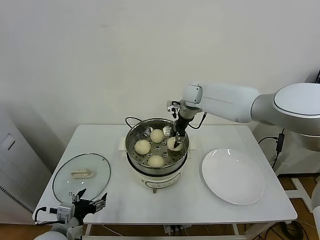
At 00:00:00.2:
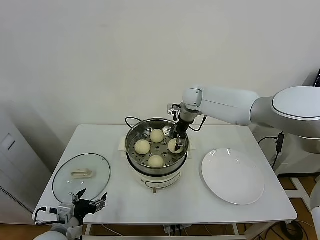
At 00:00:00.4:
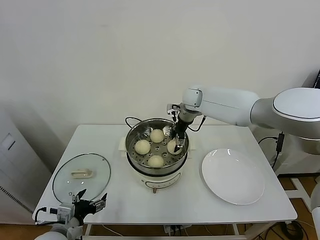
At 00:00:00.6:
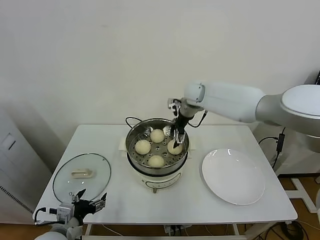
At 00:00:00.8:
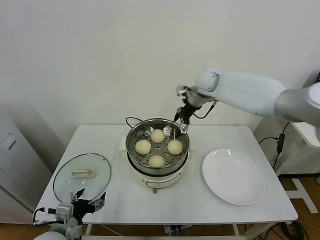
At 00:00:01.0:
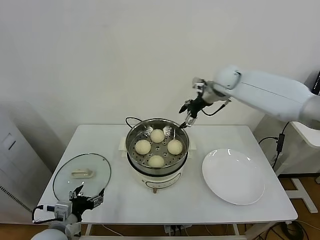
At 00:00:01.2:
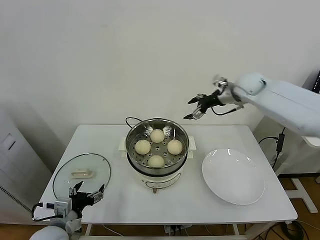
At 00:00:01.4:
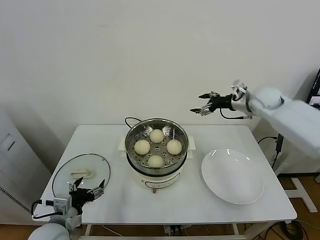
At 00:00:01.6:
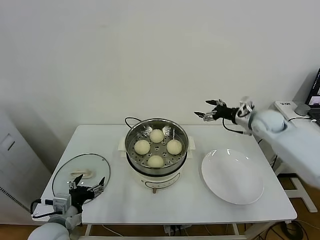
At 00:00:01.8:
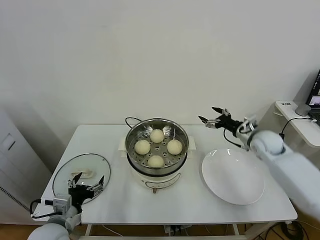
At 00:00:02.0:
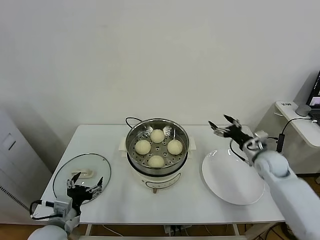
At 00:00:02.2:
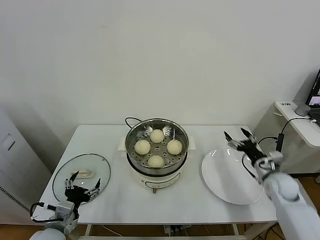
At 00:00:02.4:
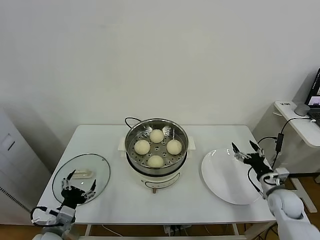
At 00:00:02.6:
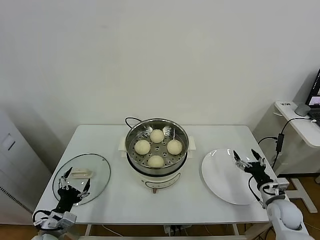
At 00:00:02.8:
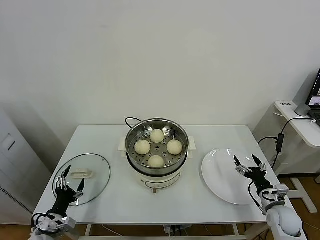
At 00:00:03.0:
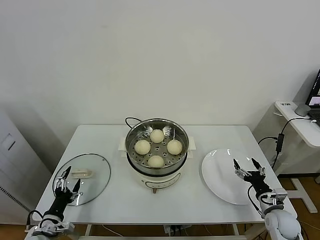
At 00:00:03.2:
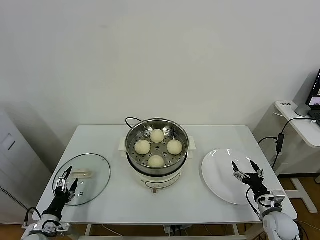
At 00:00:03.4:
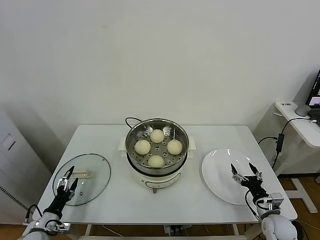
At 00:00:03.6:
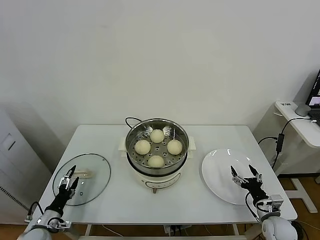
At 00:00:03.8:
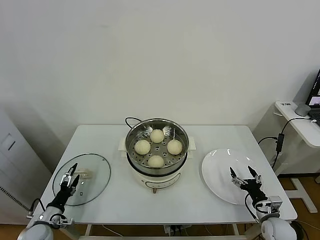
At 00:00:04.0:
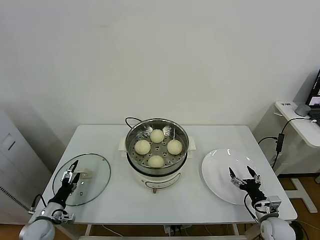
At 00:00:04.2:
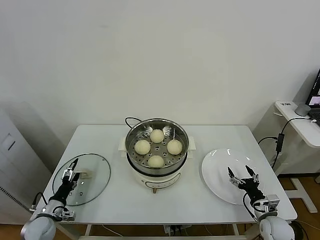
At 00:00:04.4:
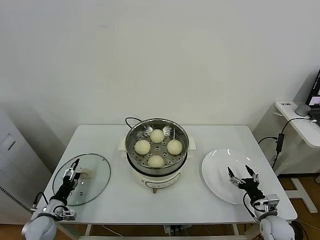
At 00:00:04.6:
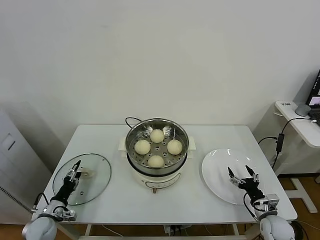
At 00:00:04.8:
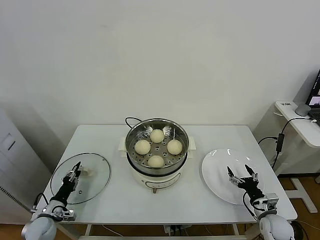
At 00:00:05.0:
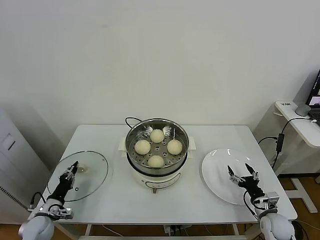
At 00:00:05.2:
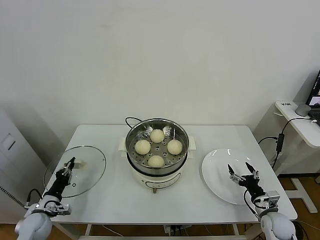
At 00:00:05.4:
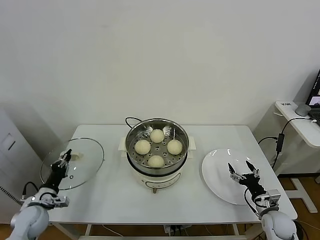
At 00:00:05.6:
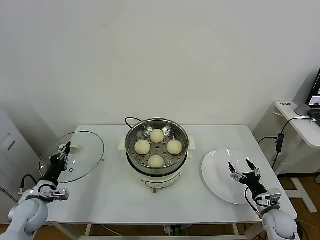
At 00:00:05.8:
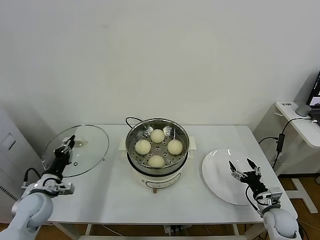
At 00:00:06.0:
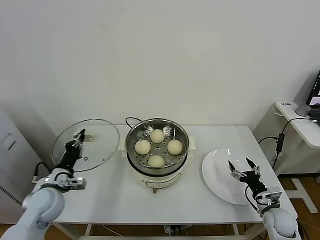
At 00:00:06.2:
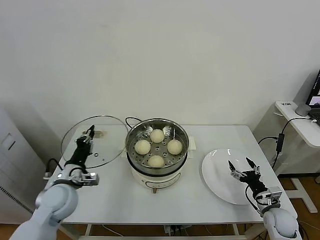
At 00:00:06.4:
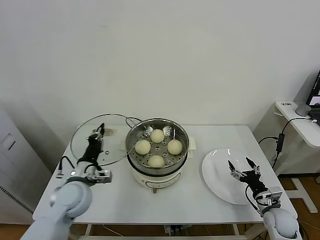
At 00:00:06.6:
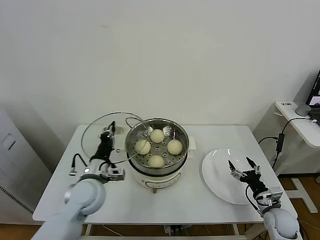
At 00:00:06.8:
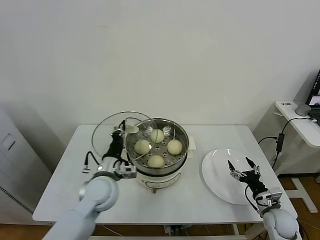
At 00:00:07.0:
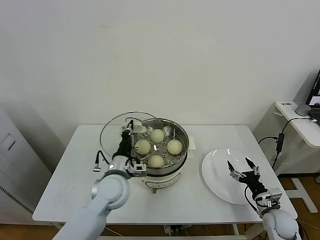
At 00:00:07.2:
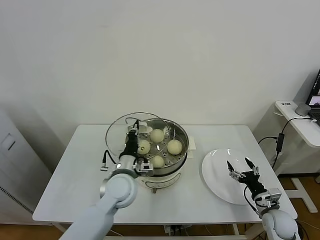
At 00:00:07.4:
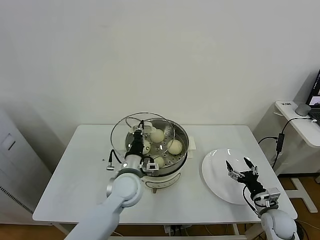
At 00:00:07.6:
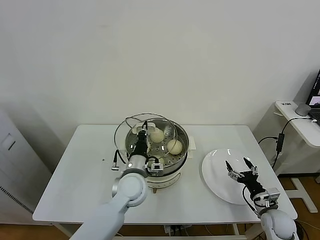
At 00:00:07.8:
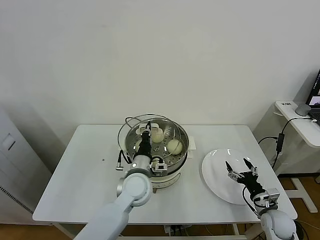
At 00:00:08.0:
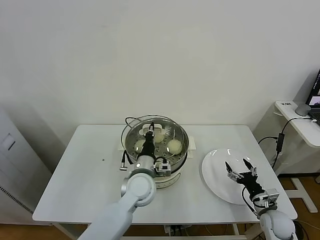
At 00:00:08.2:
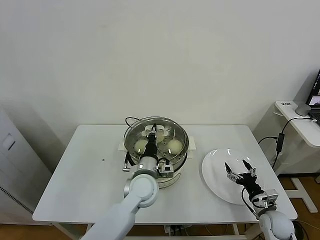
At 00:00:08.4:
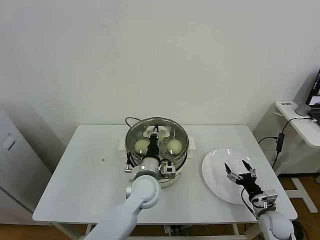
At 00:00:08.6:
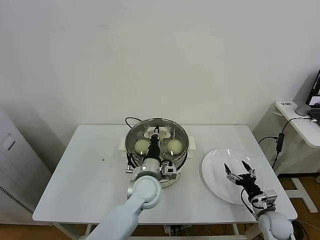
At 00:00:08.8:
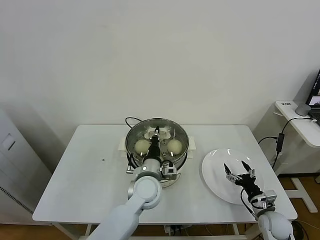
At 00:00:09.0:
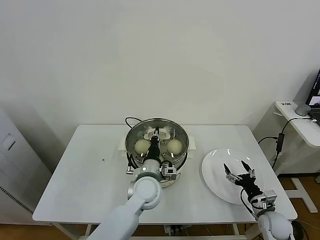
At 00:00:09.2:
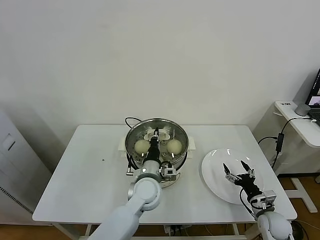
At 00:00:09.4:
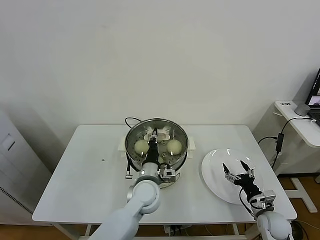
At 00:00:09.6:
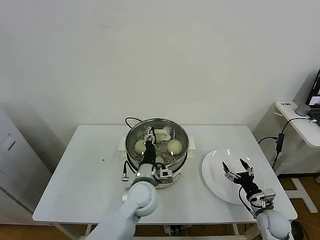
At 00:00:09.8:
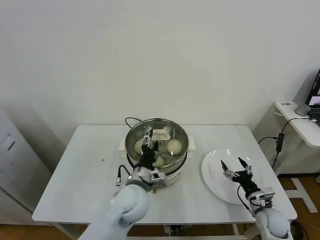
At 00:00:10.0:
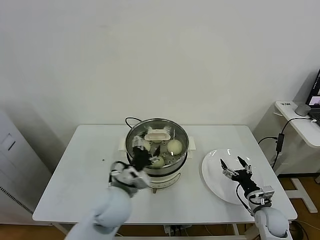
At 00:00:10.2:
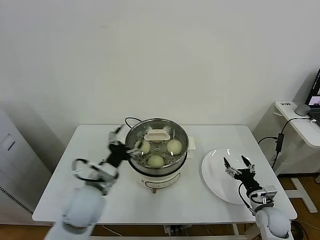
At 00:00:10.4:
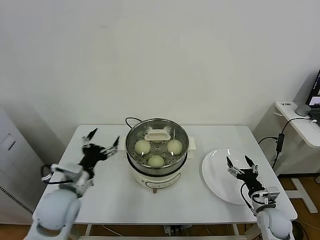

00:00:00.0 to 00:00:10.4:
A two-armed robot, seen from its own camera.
Task of the whole recording: take steamed baozi put them in steamer.
Step, 00:00:00.8 to 00:00:05.2: Grasp the pot lid with left gripper.
Step, 00:00:05.4 to 00:00:09.8: Place the pot lid on the steamer with left gripper.
00:00:00.0 to 00:00:01.4: The right gripper goes roughly 25 cm to the right, and opens up.
00:00:01.4 to 00:00:03.0: The left gripper shifts roughly 15 cm downward and to the left; the right gripper travels downward and backward by approximately 40 cm.
00:00:03.0 to 00:00:04.4: The left gripper goes about 10 cm forward and downward.
00:00:04.4 to 00:00:06.0: The left gripper shifts roughly 20 cm upward and to the right, and closes.
00:00:06.0 to 00:00:07.4: The left gripper moves to the right, approximately 25 cm.
00:00:07.4 to 00:00:09.0: The left gripper is displaced to the right by approximately 5 cm.
00:00:09.0 to 00:00:10.4: The left gripper moves to the left, about 20 cm, and opens its fingers.

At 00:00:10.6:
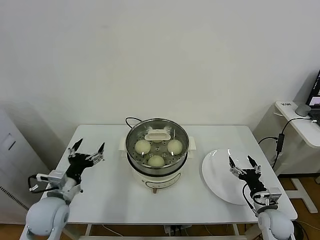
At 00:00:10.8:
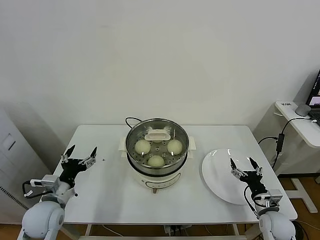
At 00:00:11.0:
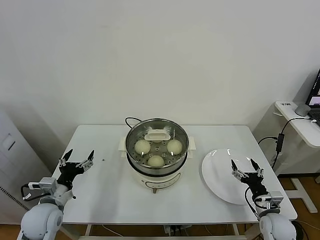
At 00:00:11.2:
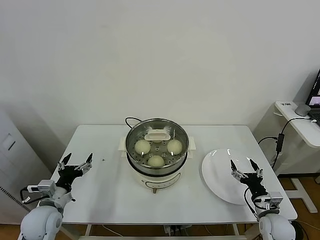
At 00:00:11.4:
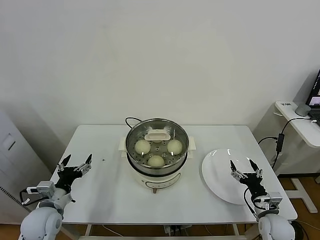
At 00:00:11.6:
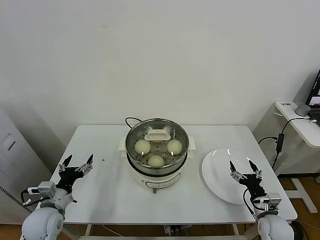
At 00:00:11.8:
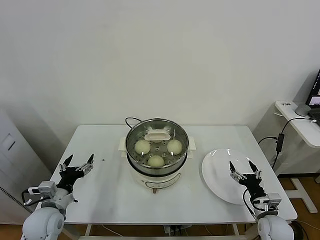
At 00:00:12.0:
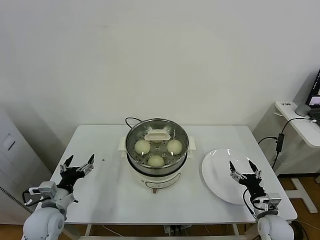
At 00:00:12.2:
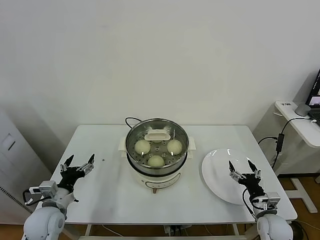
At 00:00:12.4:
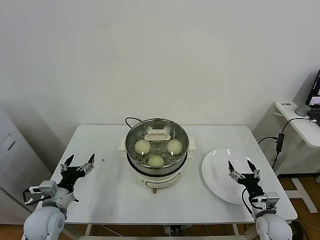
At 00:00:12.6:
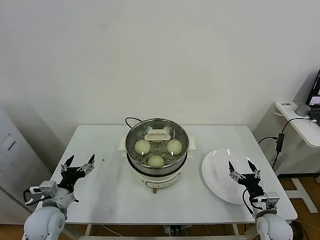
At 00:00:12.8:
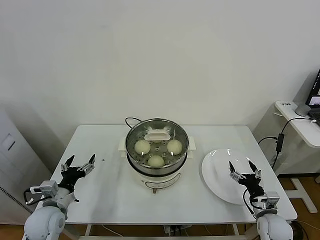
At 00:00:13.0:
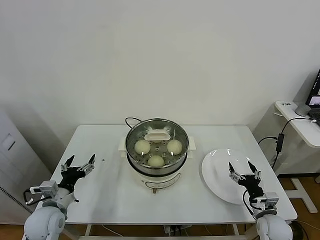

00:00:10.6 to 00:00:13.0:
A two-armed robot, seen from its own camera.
Task of the whole recording: take steamed baozi put them in steamer.
00:00:10.6 to 00:00:11.8: The left gripper goes roughly 5 cm downward.
00:00:11.8 to 00:00:13.0: Both grippers stay put.
